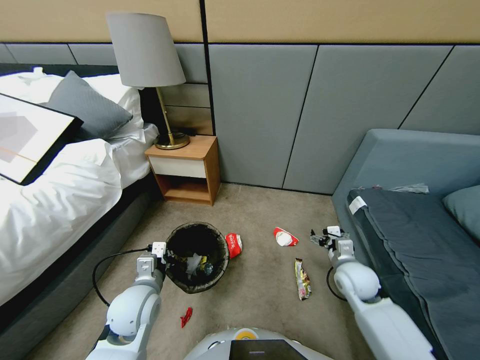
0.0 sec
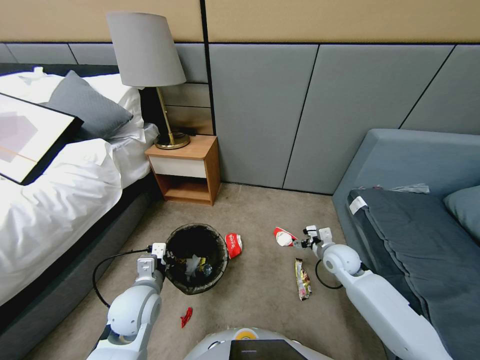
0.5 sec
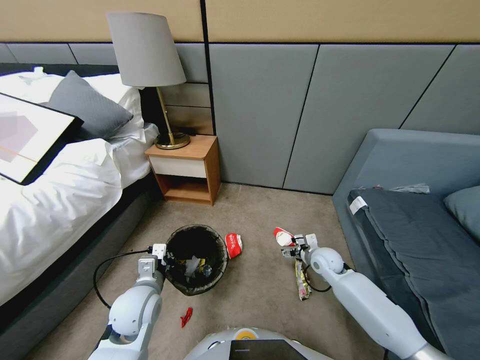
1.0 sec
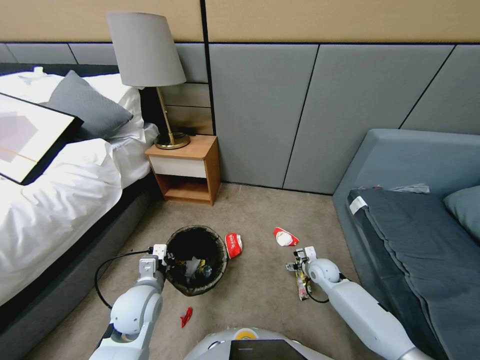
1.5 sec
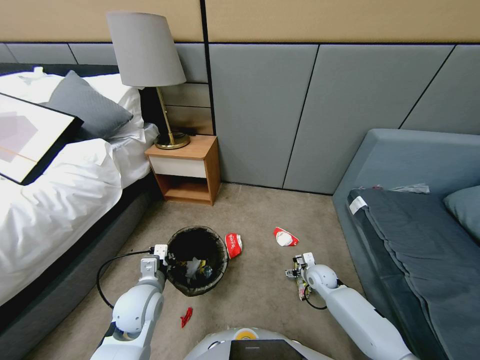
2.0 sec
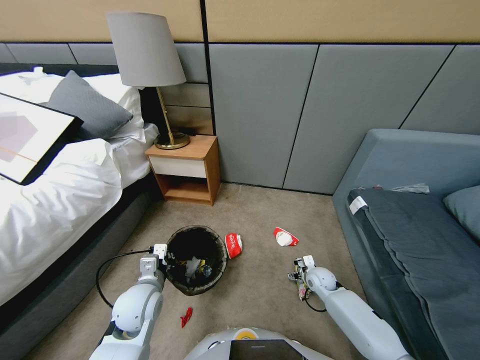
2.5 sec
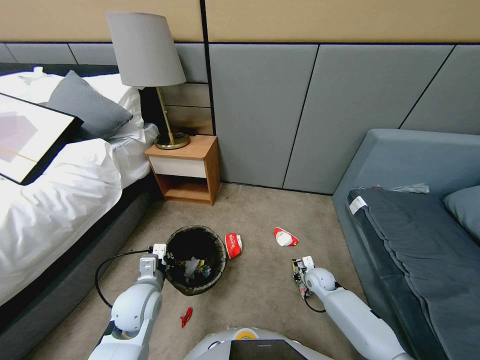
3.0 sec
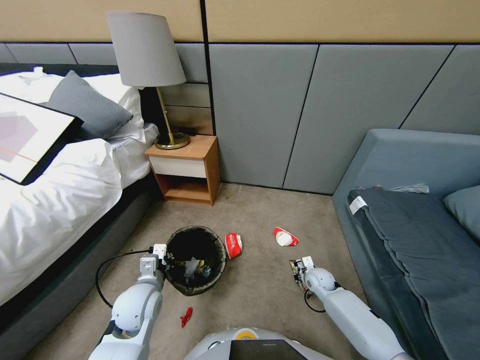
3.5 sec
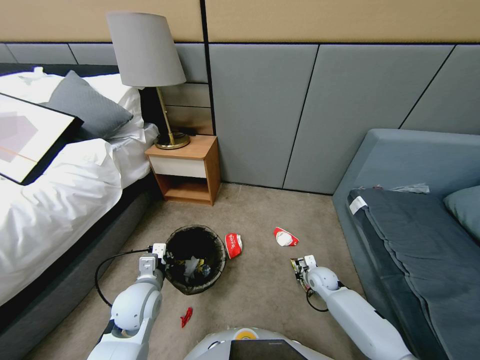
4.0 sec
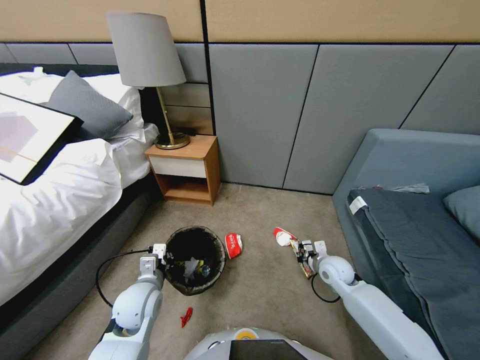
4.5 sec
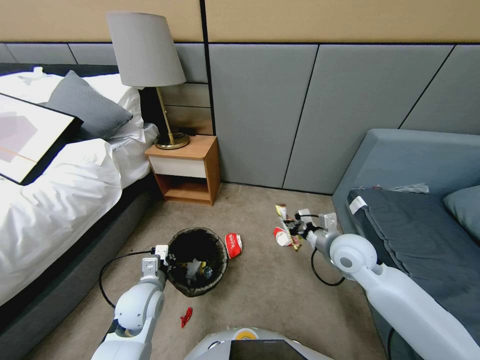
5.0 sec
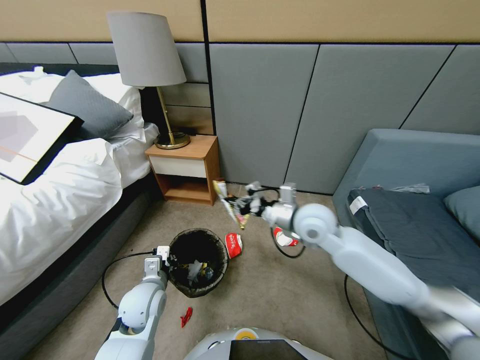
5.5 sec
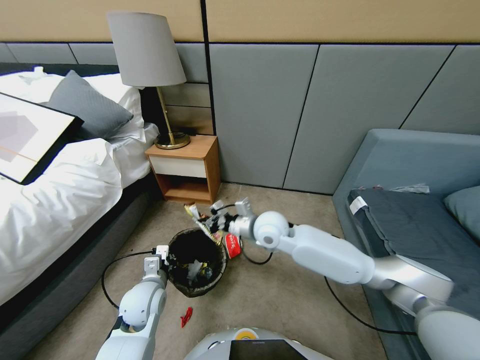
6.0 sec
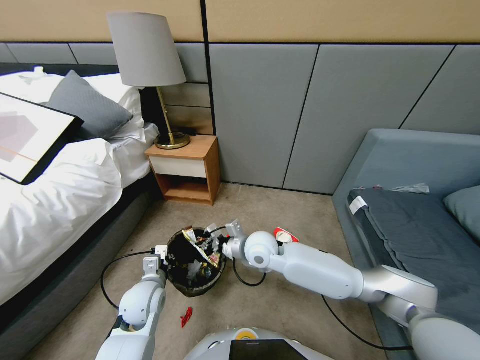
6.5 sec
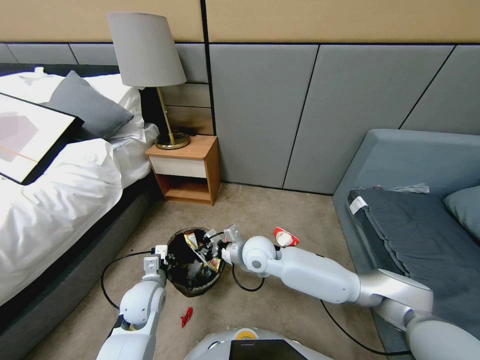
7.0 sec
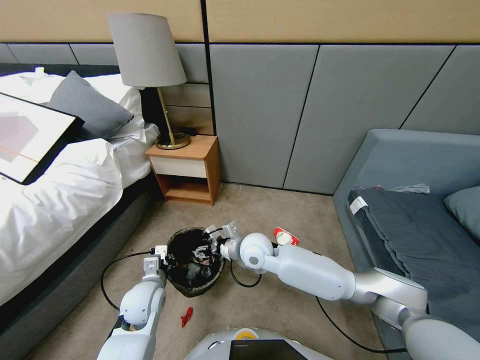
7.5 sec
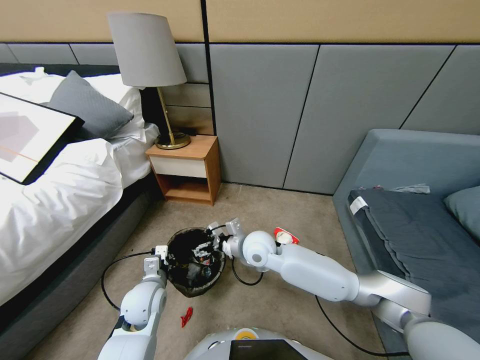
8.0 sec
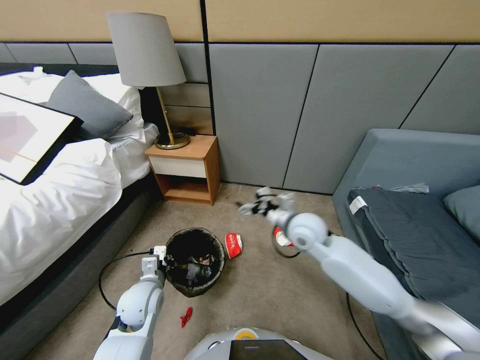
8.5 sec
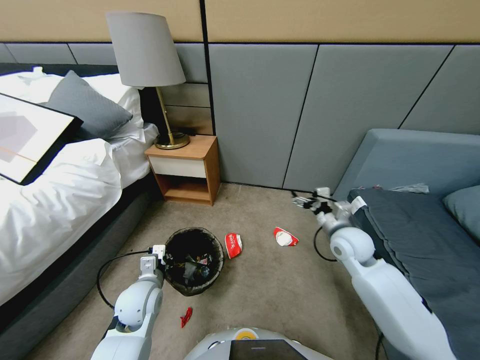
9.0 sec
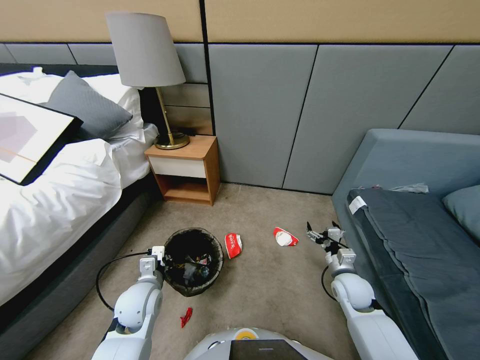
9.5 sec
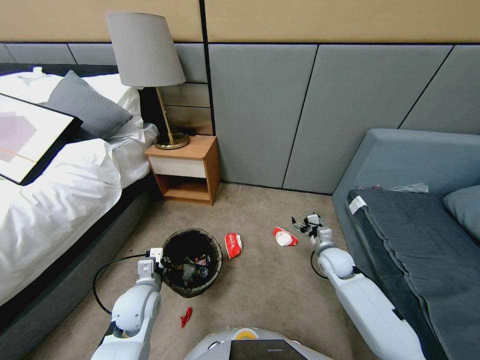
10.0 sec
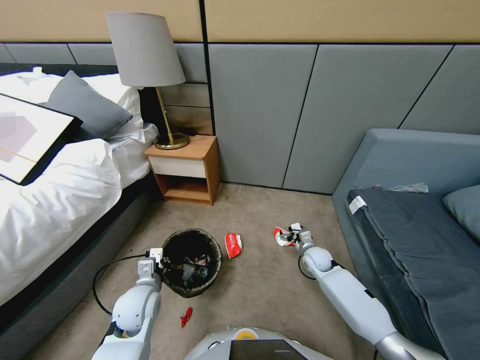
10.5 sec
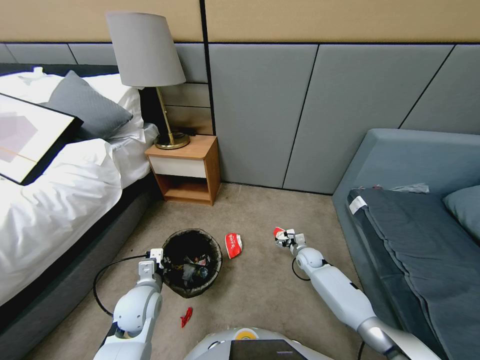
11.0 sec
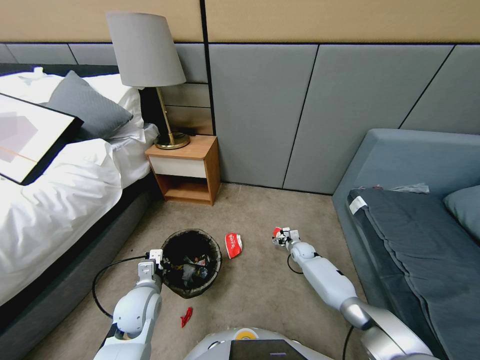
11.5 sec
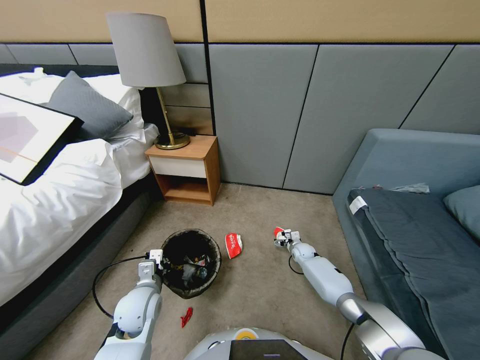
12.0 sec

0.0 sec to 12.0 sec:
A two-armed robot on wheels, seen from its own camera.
Task of the whole recording: Pick up the trash bin, then pick up the garbage from the floor and place it into the trash bin.
0.0 sec to 2.0 sec: The right gripper is displaced downward by some 15 cm.
2.0 sec to 4.0 sec: The right gripper closes up.
4.0 sec to 6.0 sec: The right gripper shifts some 35 cm to the left and upward.
6.0 sec to 8.0 sec: The right gripper opens up.
8.0 sec to 10.0 sec: The right gripper goes some 30 cm to the right and downward.
10.0 sec to 12.0 sec: The right gripper goes some 20 cm downward and forward.

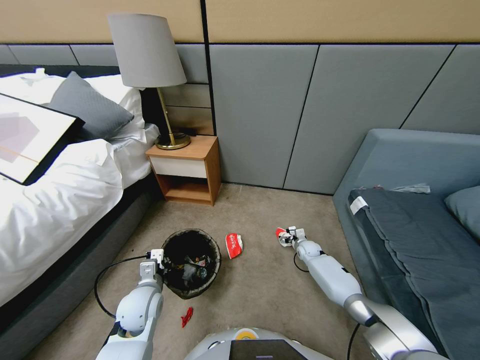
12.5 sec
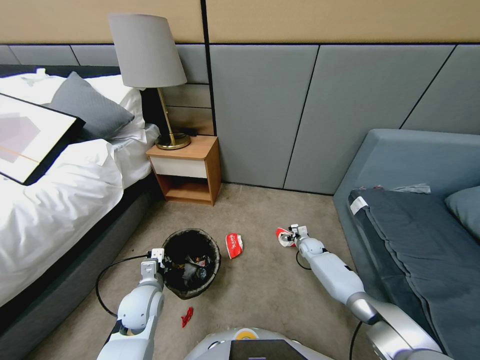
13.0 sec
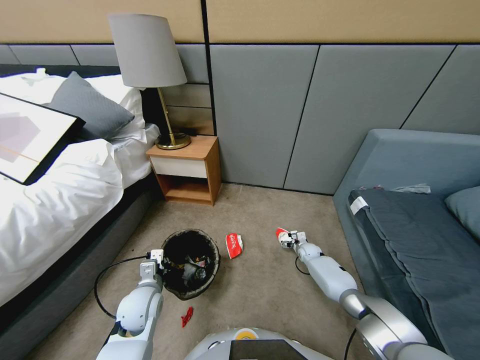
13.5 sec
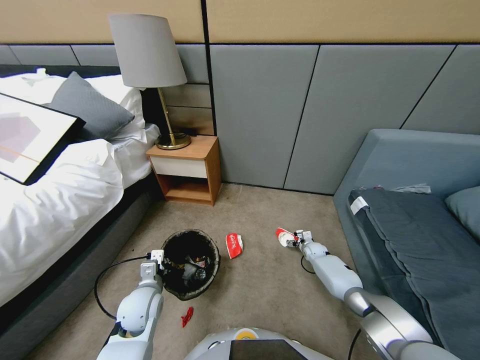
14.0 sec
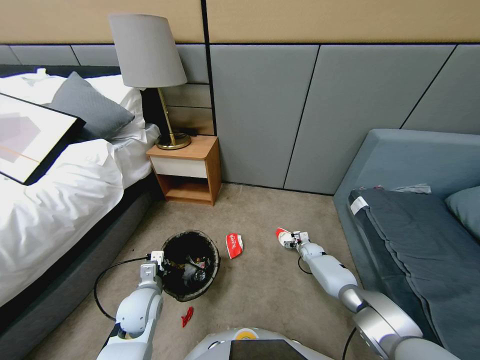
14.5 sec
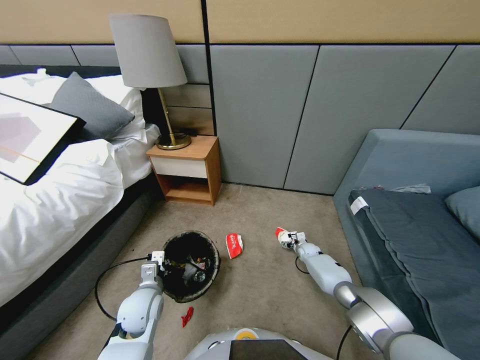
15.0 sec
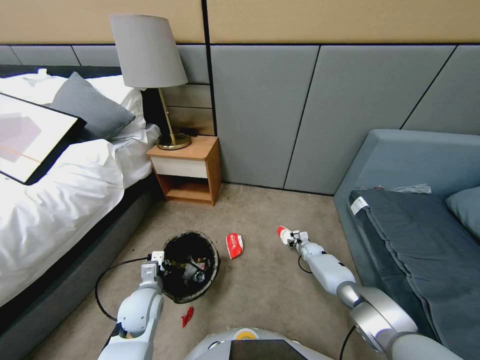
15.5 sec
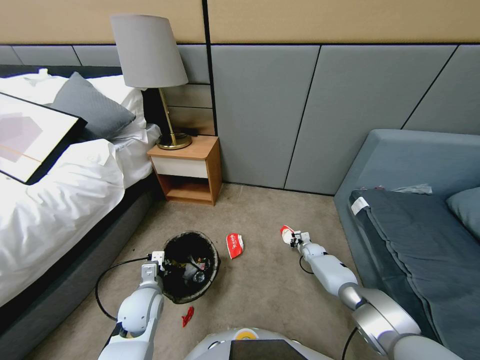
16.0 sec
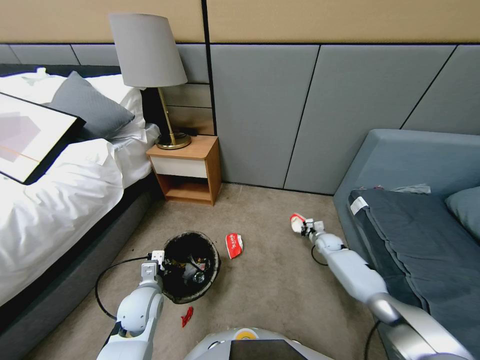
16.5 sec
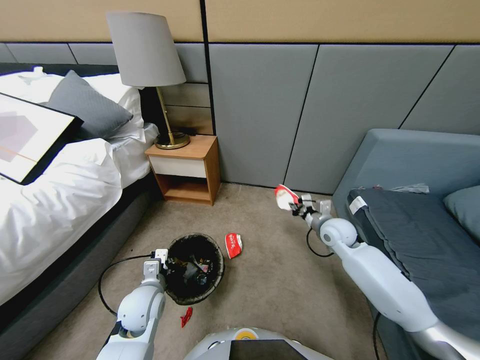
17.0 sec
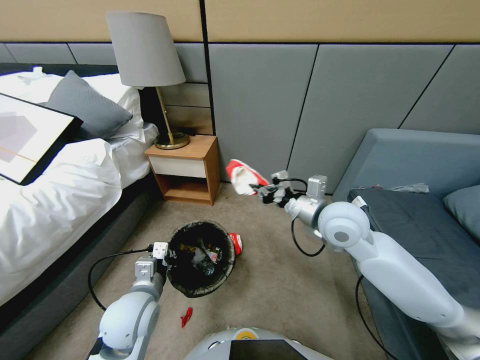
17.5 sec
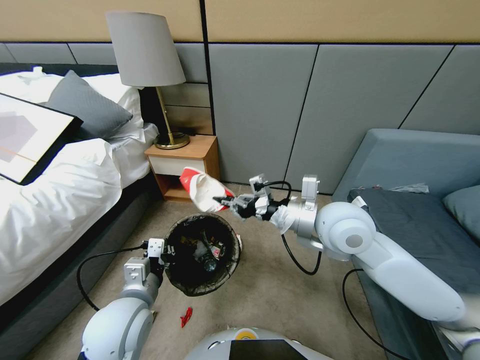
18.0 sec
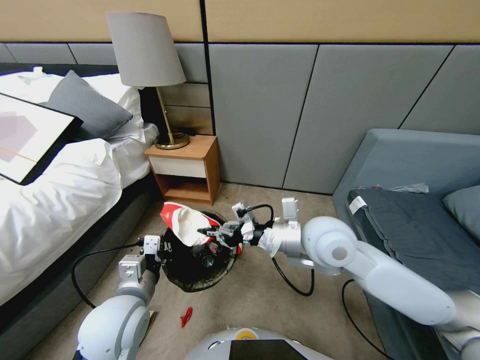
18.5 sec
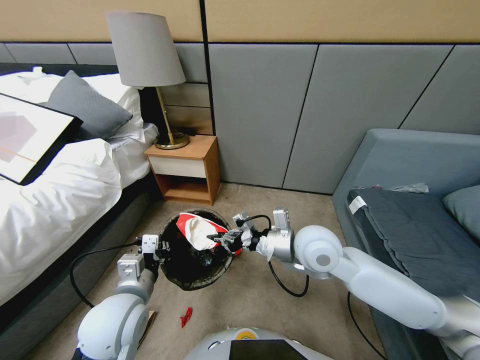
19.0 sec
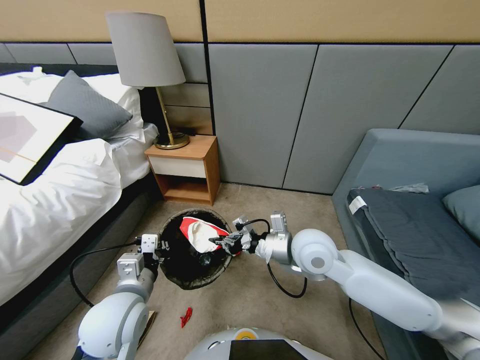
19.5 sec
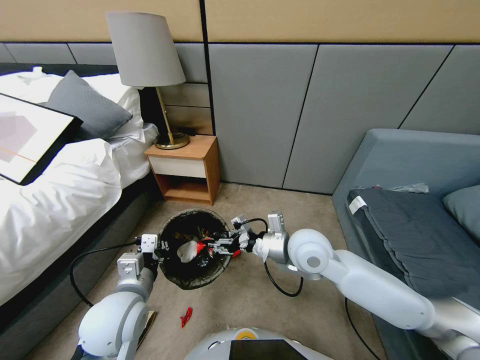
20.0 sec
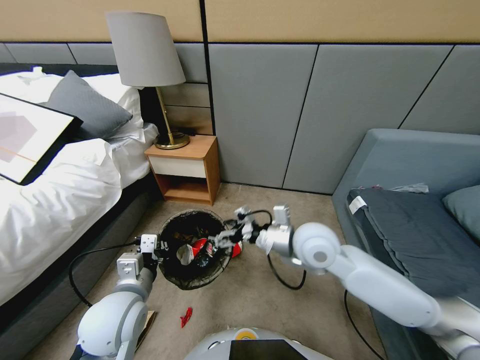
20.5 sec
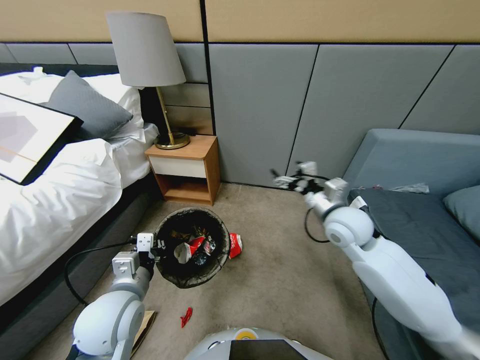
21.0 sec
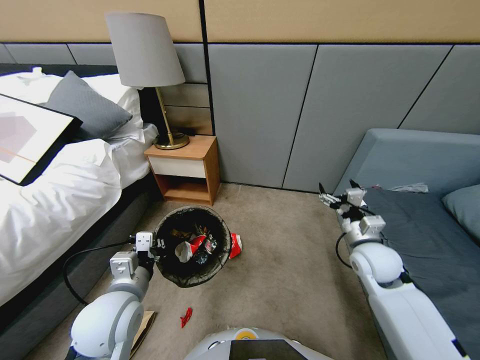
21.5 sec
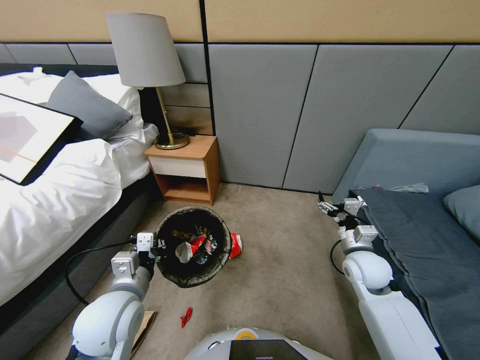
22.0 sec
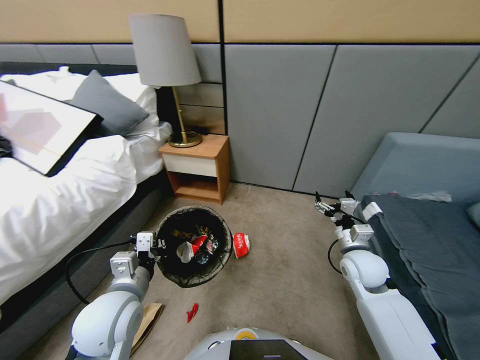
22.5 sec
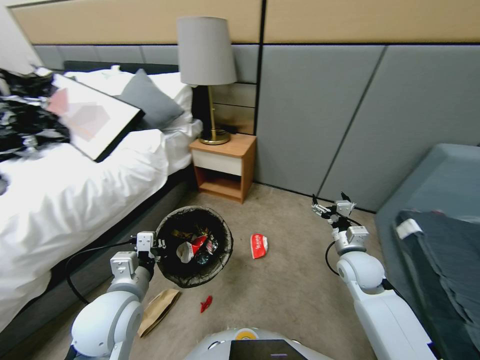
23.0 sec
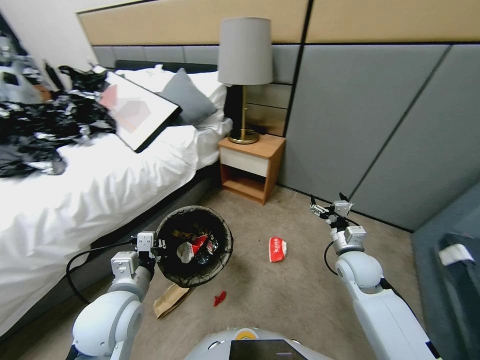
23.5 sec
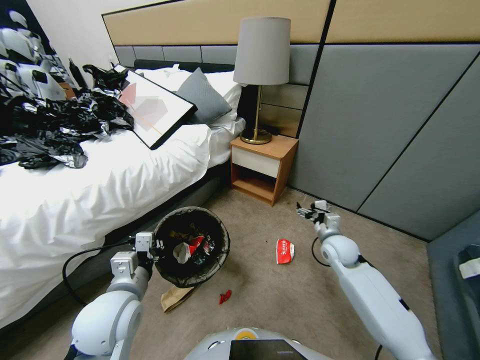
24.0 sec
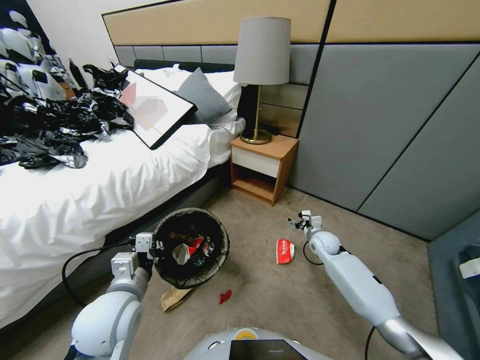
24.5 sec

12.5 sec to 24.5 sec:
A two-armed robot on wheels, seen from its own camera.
Task of the whole recording: Pick up the trash bin, then pick up the garbage from the floor and place it into the trash bin.
12.5 sec to 14.5 sec: The right gripper ends up about 5 cm from where it was.
14.5 sec to 16.5 sec: The right gripper heads upward, covering about 10 cm, and closes up.
16.5 sec to 18.5 sec: The right gripper shifts about 40 cm upward, to the left and backward; the left gripper heads upward, covering about 15 cm.
18.5 sec to 20.5 sec: The right gripper opens.
20.5 sec to 22.5 sec: The right gripper heads to the right and downward, covering about 20 cm.
22.5 sec to 24.5 sec: The right gripper heads forward and downward, covering some 20 cm.

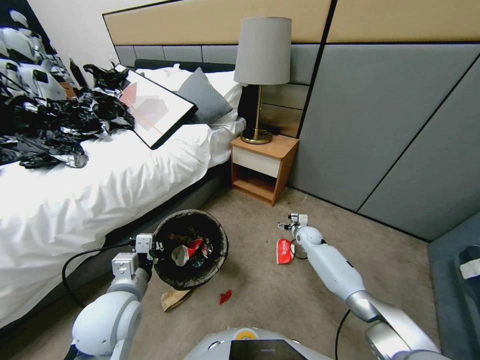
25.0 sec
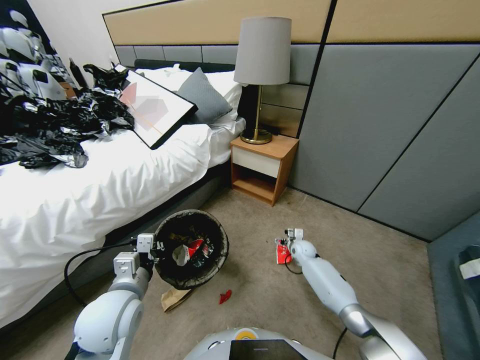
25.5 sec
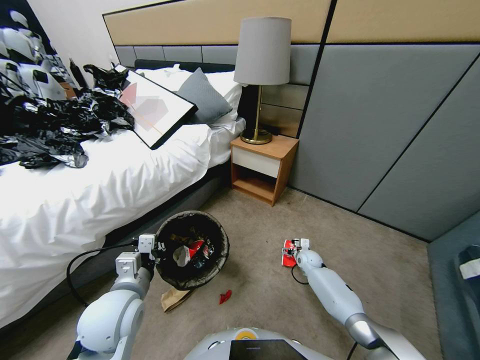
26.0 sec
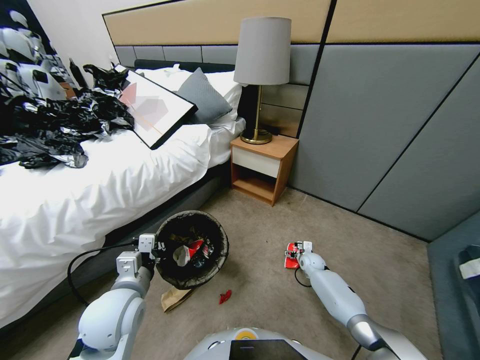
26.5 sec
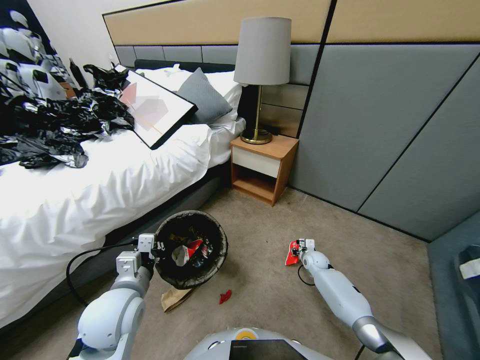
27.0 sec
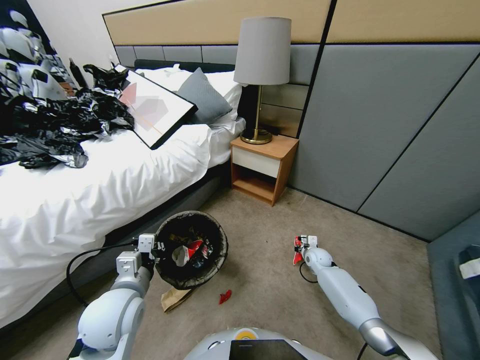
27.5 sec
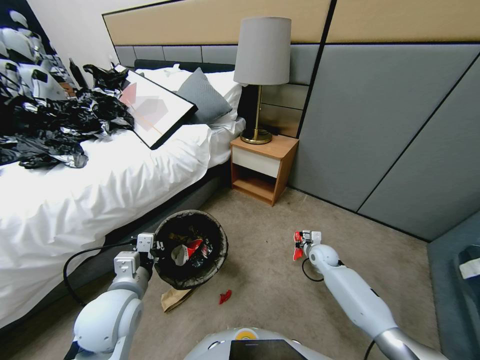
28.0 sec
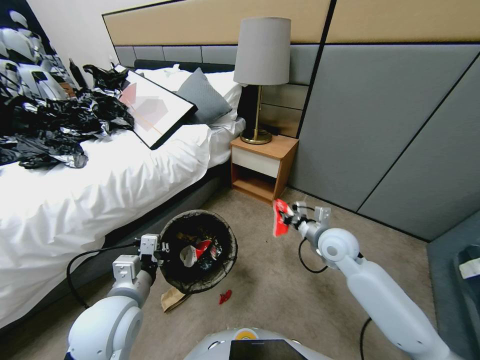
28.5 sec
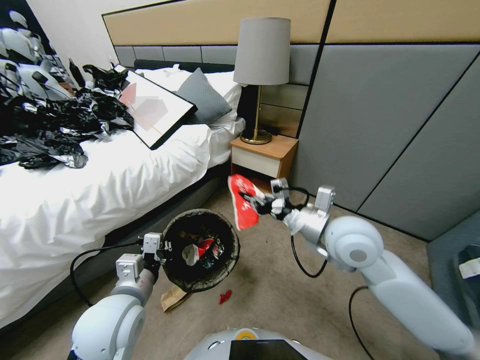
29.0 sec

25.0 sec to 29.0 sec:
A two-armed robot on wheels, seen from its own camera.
Task of the whole recording: Pick up the trash bin, then pick up the garbage from the floor and place it into the trash bin.
25.0 sec to 27.0 sec: The right gripper goes roughly 10 cm downward and backward, and closes up.
27.0 sec to 29.0 sec: The right gripper goes about 40 cm upward.
